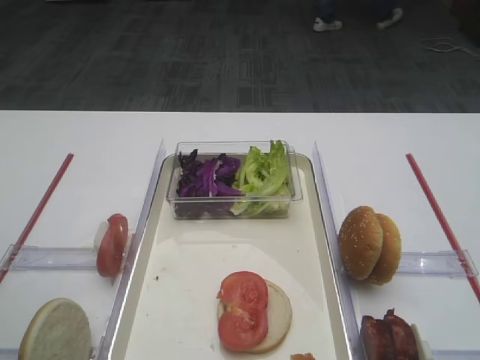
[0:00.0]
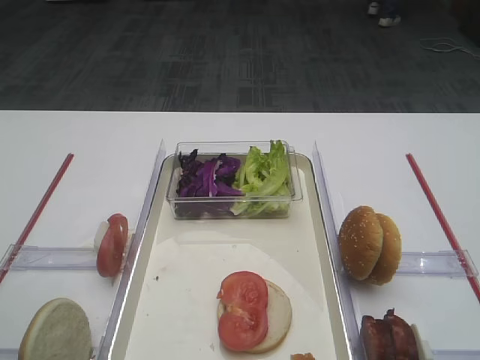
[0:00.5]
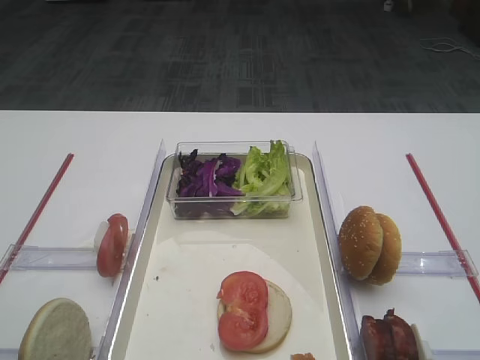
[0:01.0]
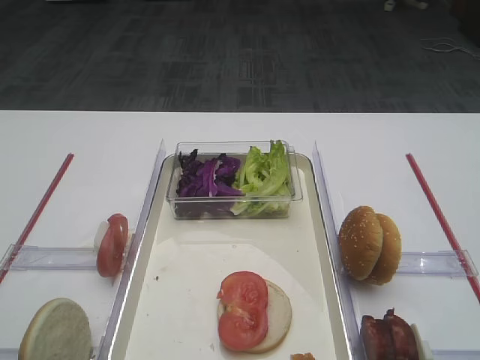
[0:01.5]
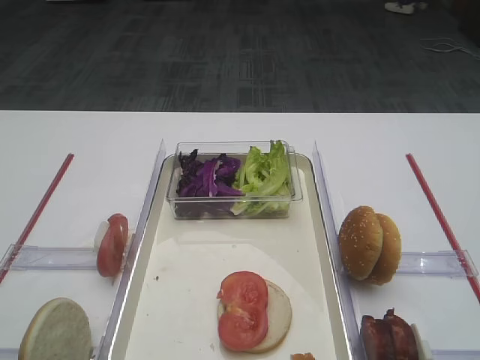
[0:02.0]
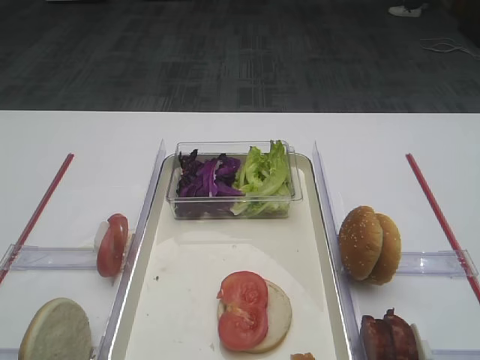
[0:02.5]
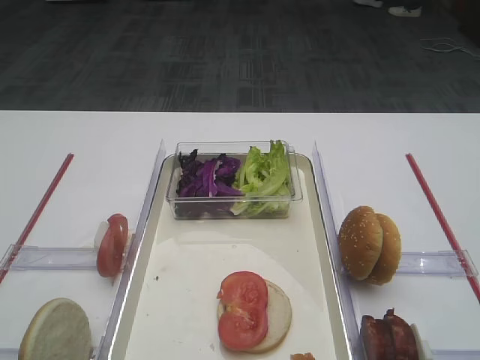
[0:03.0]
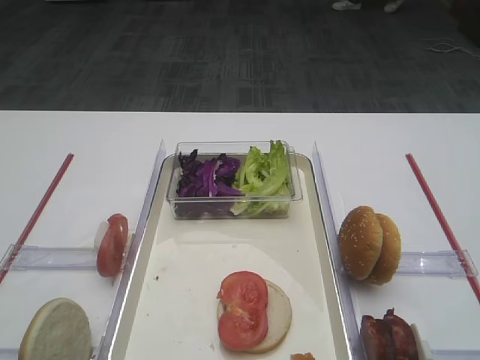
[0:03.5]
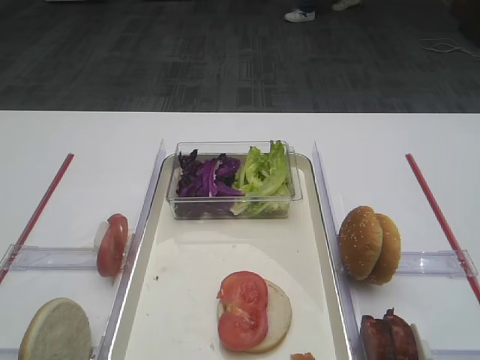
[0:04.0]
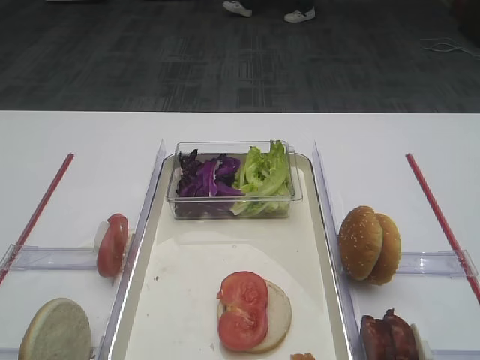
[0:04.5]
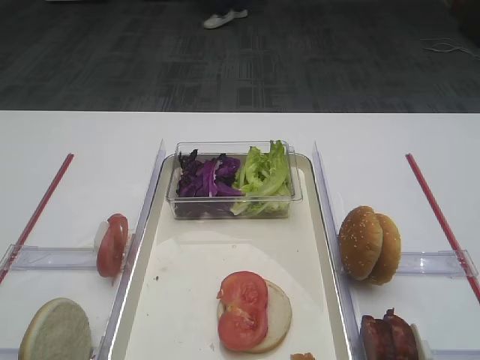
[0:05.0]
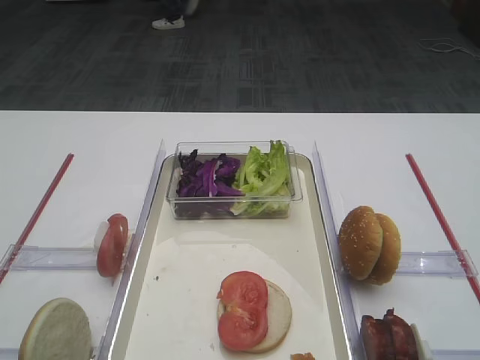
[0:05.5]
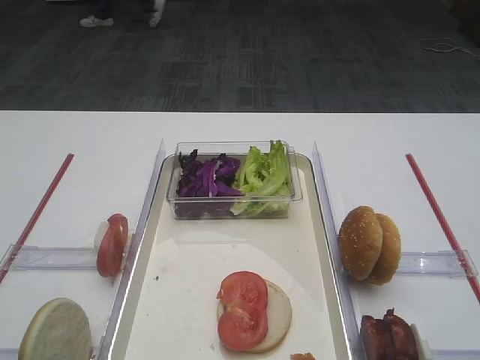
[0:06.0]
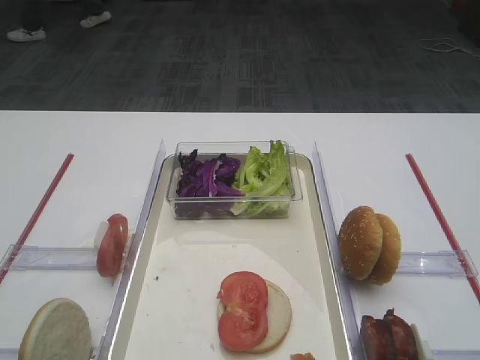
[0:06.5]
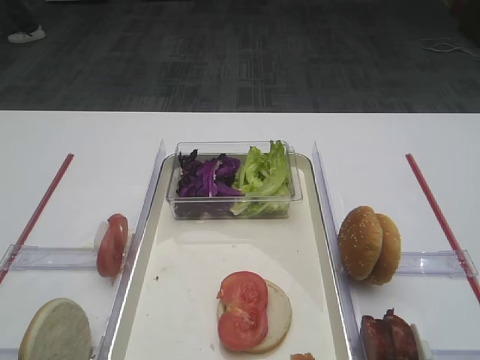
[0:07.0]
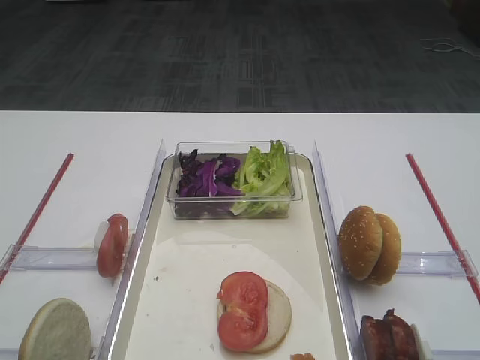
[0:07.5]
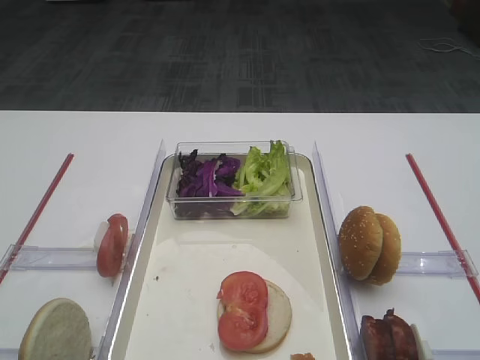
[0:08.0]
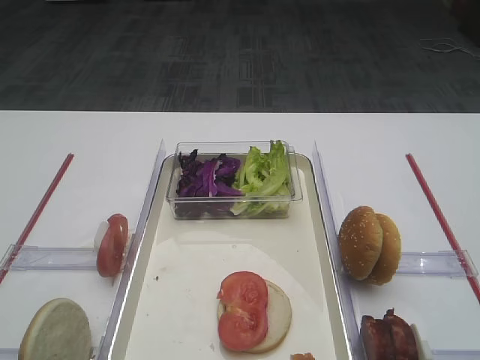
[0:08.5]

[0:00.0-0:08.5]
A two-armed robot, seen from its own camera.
0:06.5 to 0:08.5: Neither gripper changes place.

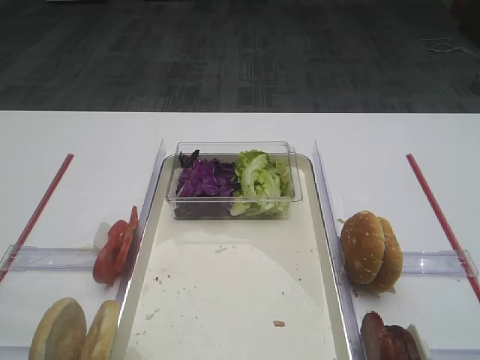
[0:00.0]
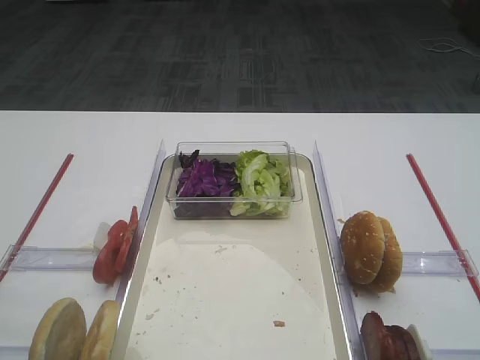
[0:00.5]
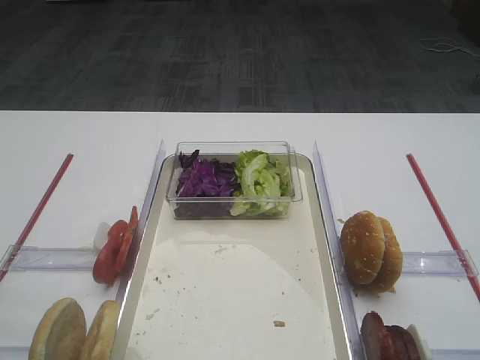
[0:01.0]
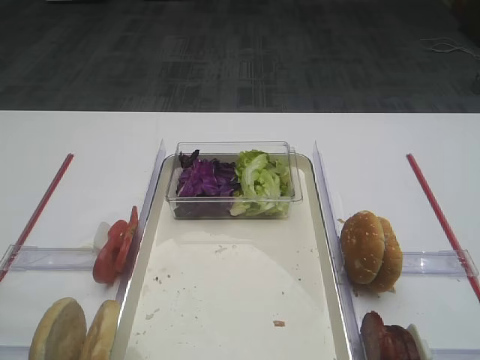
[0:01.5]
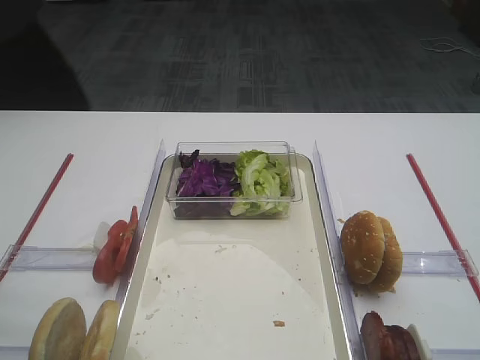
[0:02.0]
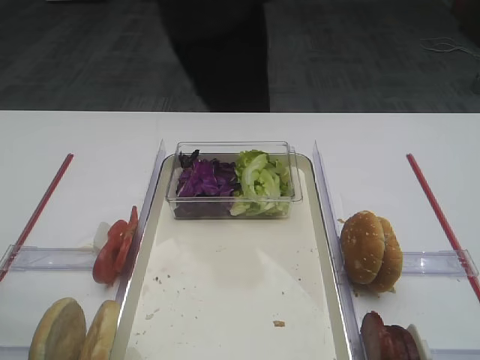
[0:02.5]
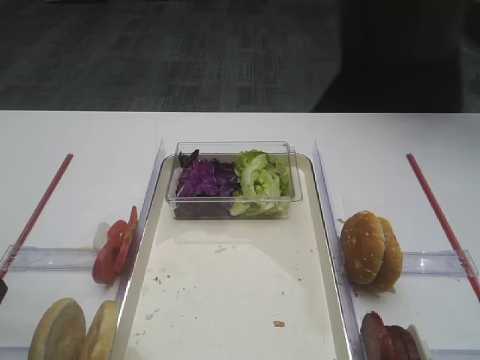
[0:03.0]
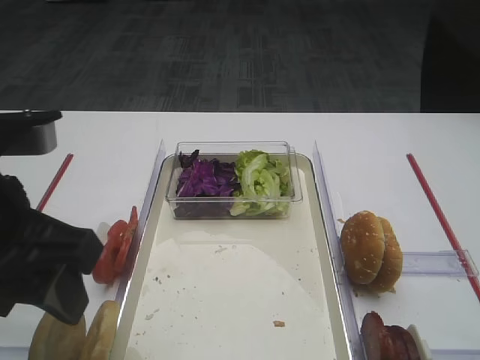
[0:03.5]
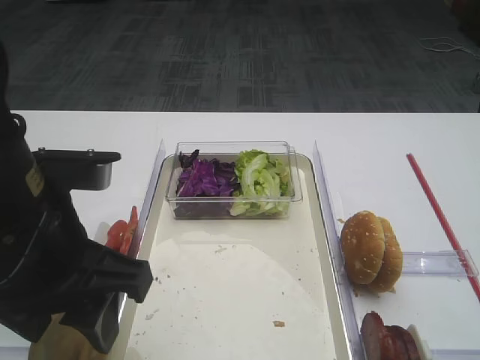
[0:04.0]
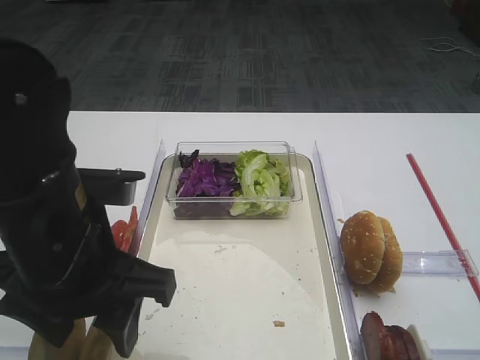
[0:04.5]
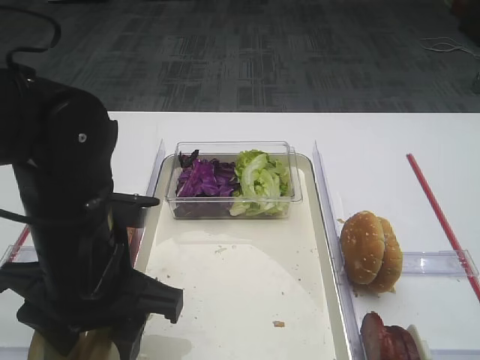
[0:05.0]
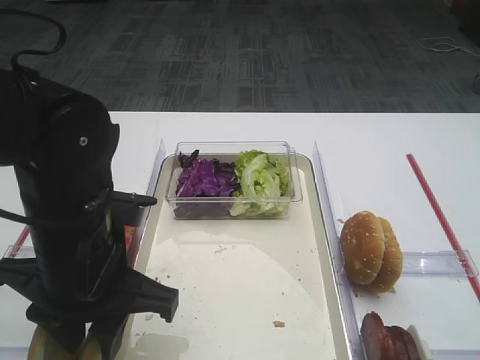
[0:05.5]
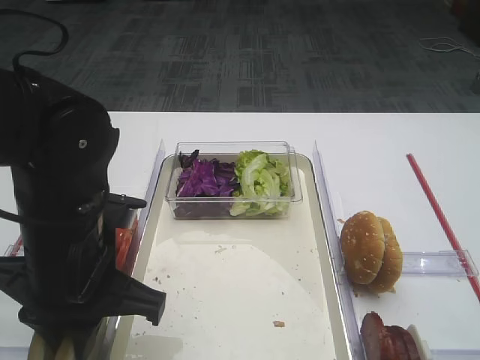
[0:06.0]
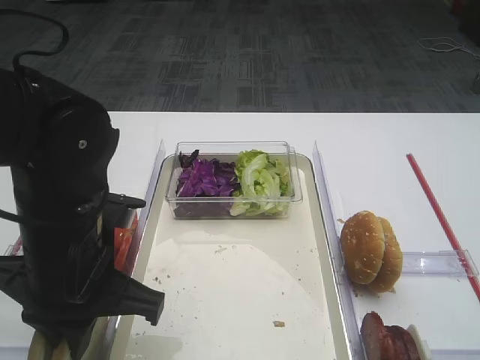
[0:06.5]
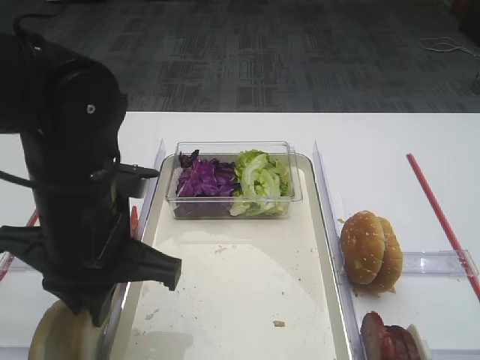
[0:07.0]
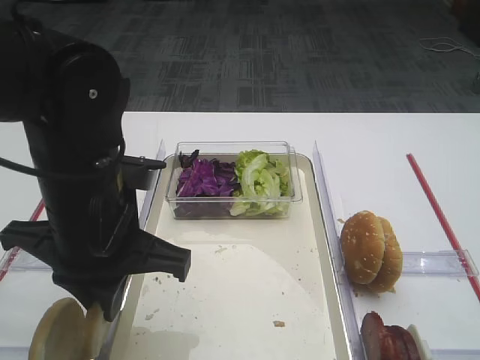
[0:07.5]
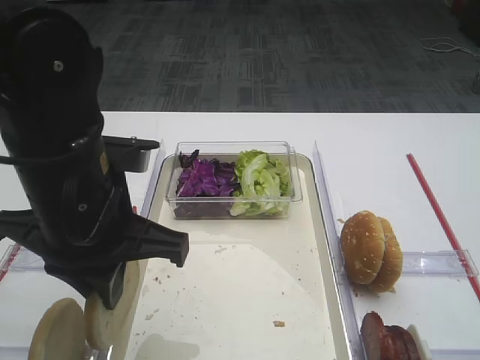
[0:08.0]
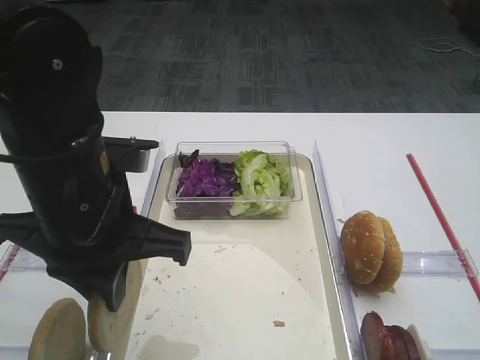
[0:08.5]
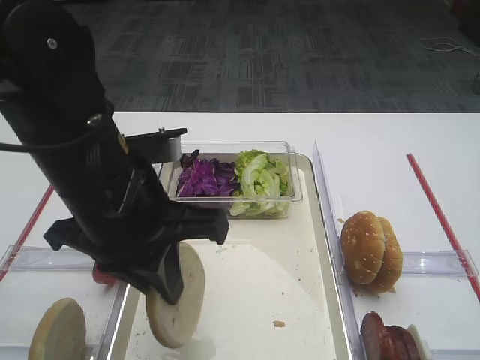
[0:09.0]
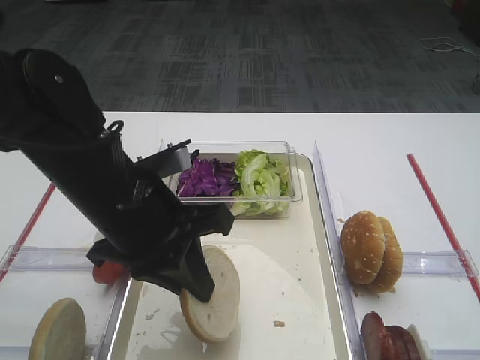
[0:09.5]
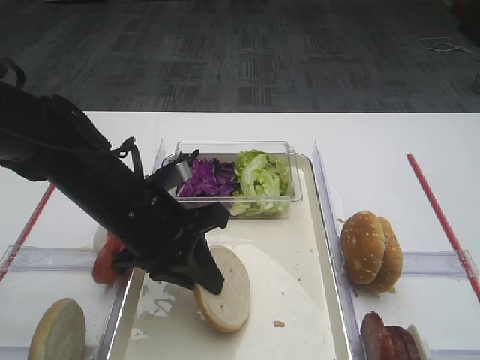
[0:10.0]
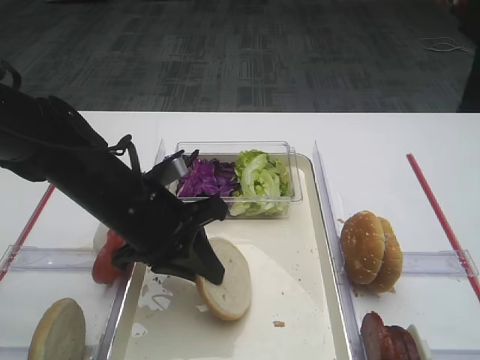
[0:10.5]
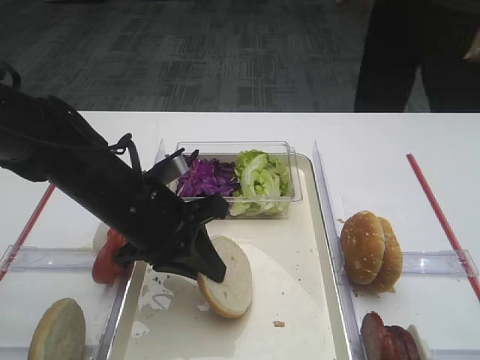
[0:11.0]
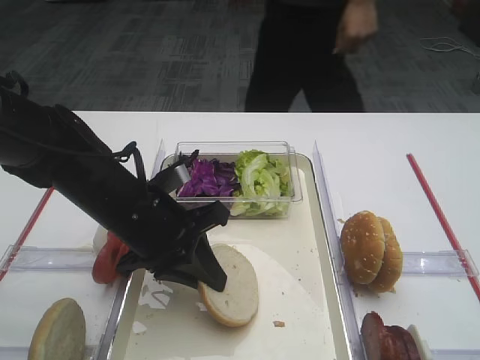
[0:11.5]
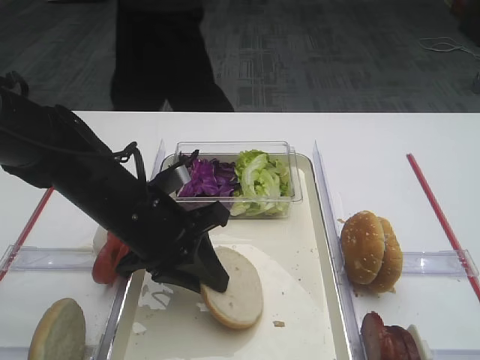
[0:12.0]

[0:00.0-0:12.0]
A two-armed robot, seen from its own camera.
Step, 0:00.0 to 0:07.5: Pick up the bread slice with the left gripper.
0:02.0 to 0:04.0: The left gripper is displaced to the right and forward by approximately 15 cm.
0:04.0 to 0:06.0: The left gripper moves downward, some 5 cm, and closes up.
0:06.0 to 0:08.0: The left gripper changes place by some 5 cm.
0:08.0 to 0:10.0: The left gripper shifts approximately 10 cm downward and forward.
0:10.0 to 0:12.0: The grippers make only small movements.

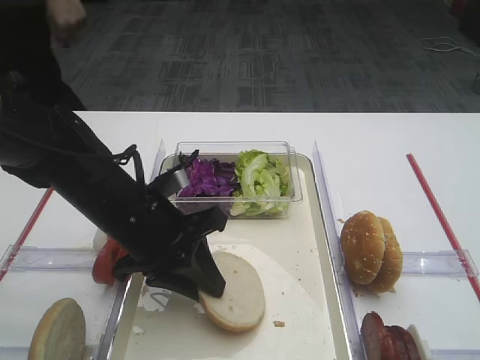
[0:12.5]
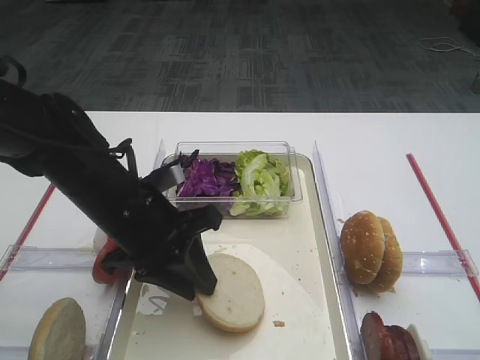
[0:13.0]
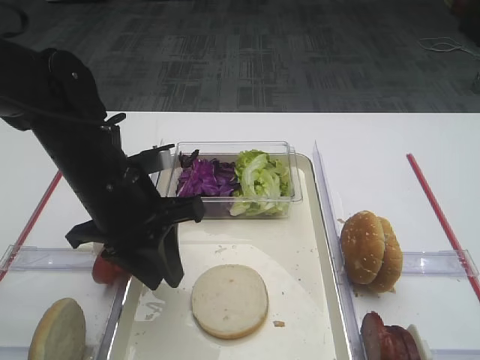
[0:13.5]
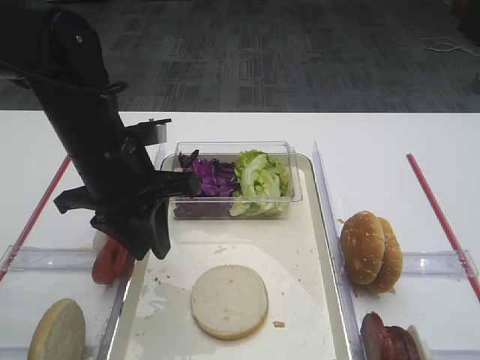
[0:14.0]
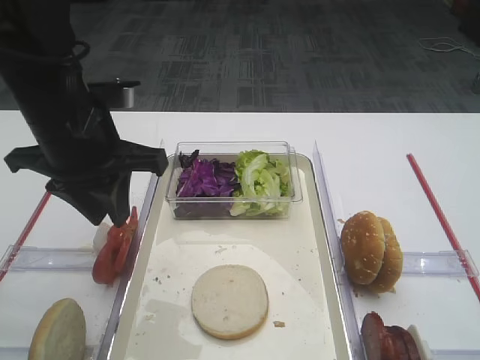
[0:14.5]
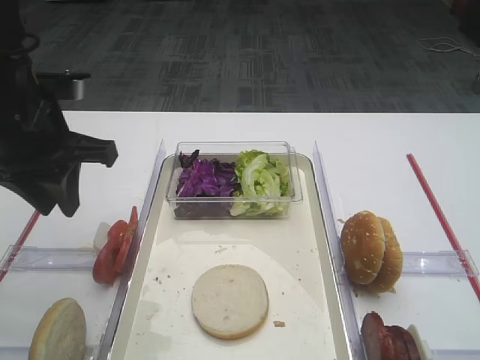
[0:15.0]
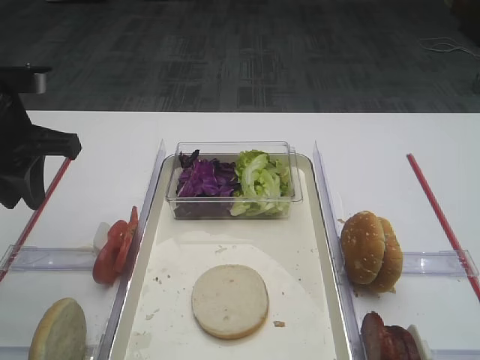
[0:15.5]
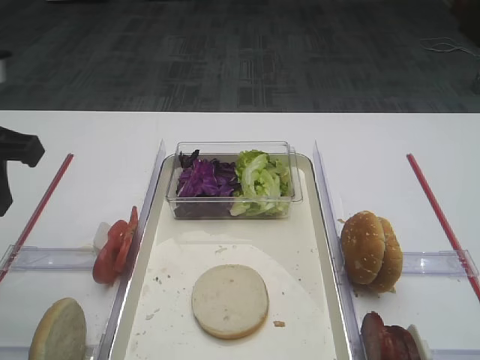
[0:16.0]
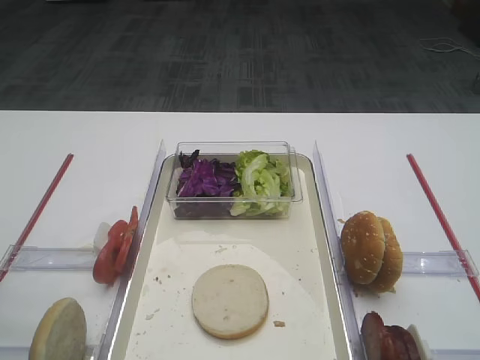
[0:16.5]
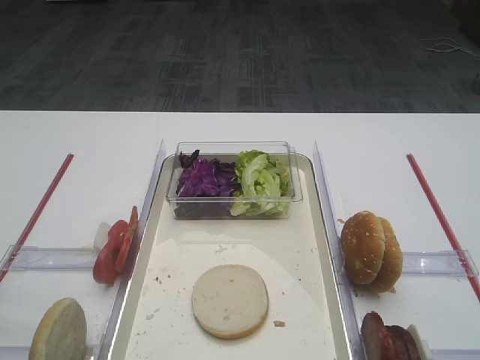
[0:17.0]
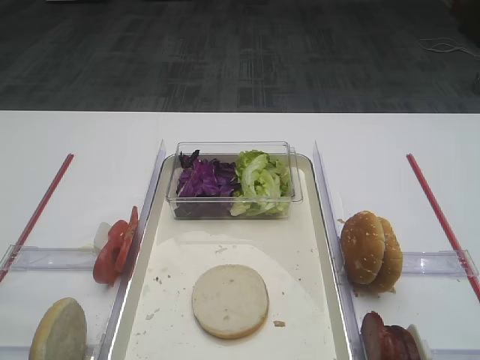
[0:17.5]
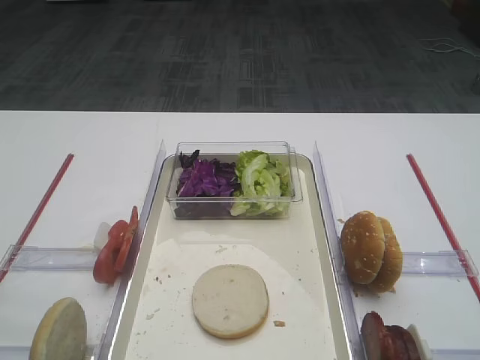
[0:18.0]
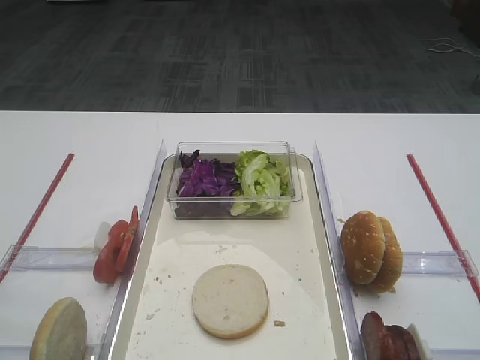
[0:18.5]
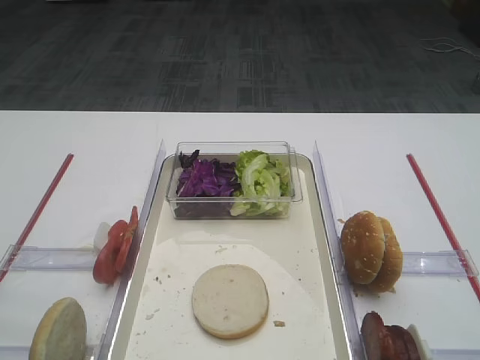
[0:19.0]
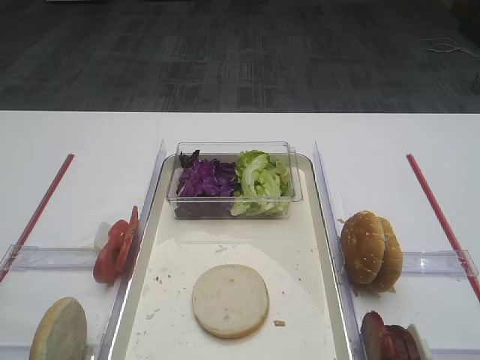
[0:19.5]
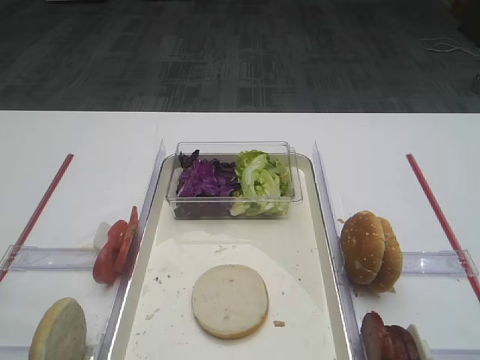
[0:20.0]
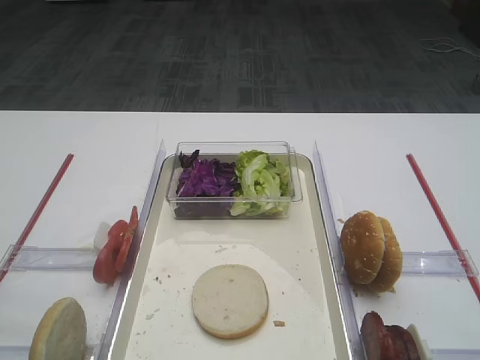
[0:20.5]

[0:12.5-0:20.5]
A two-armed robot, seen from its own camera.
0:12.5 to 0:14.5: The left gripper is displaced upward by roughly 10 cm.
0:14.5 to 0:16.5: The left gripper is displaced backward, to the left and upward by about 20 cm.
